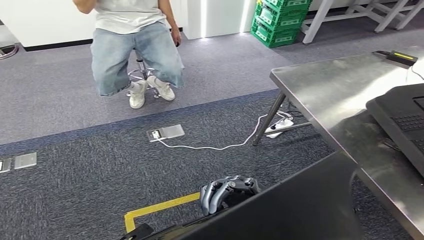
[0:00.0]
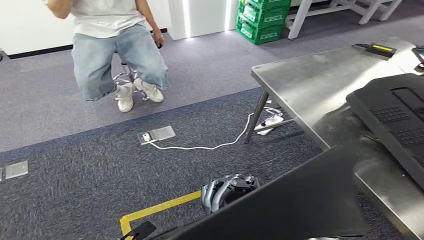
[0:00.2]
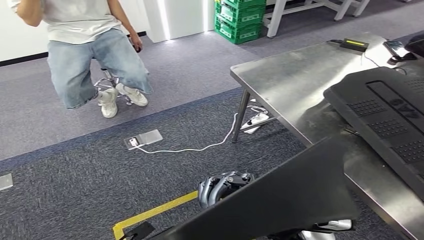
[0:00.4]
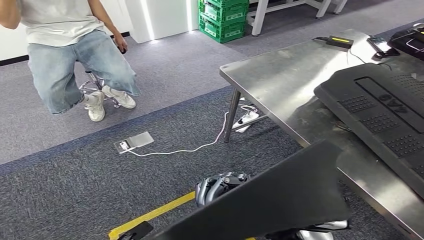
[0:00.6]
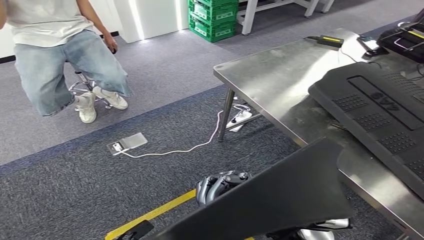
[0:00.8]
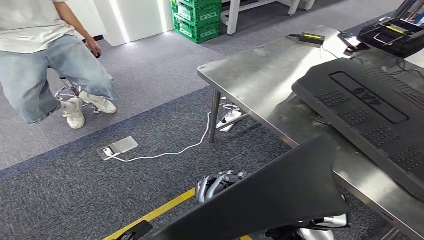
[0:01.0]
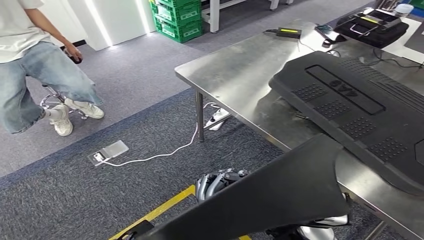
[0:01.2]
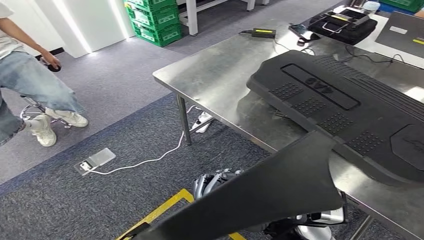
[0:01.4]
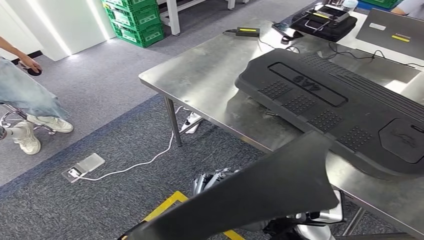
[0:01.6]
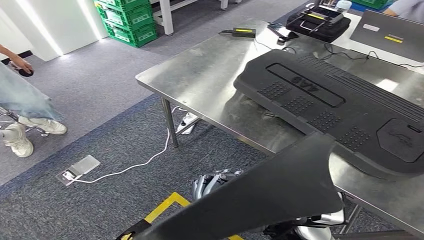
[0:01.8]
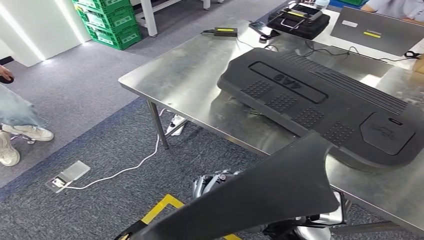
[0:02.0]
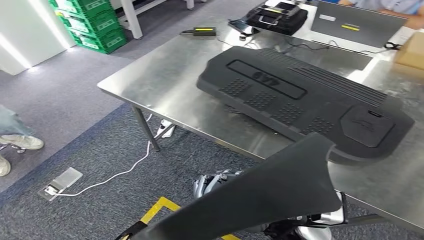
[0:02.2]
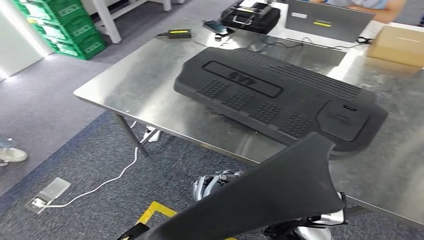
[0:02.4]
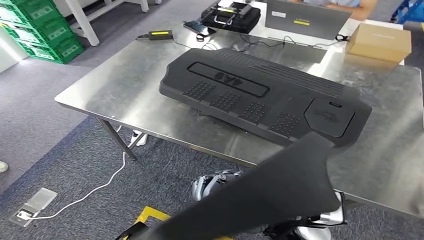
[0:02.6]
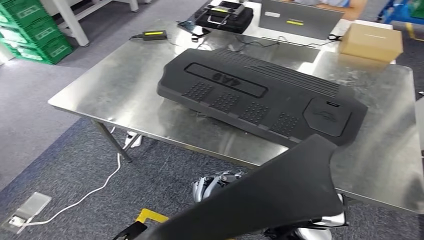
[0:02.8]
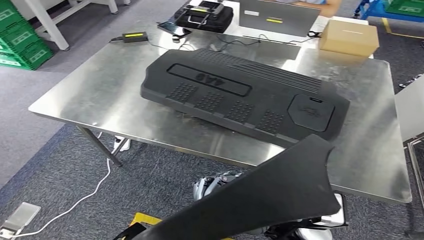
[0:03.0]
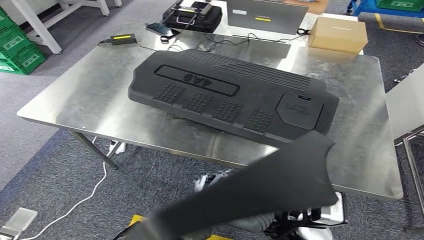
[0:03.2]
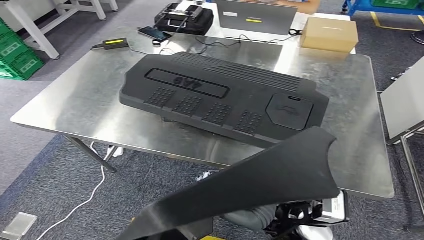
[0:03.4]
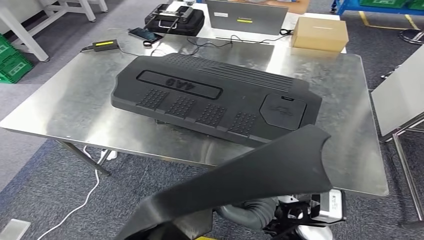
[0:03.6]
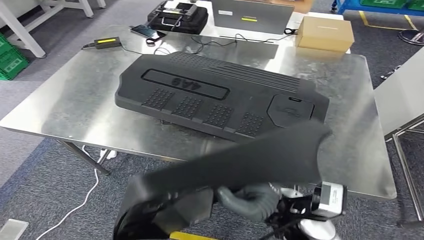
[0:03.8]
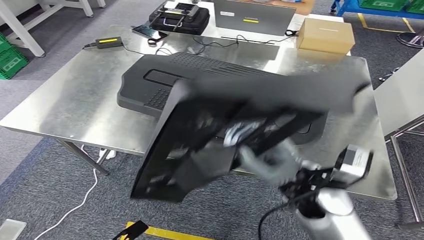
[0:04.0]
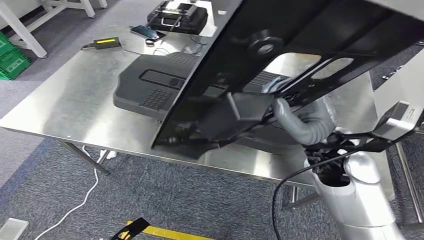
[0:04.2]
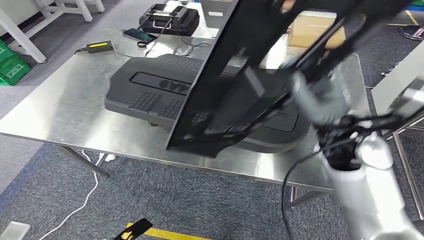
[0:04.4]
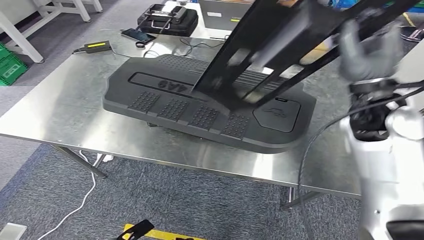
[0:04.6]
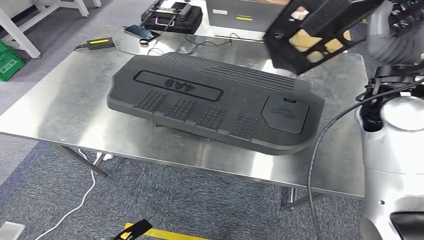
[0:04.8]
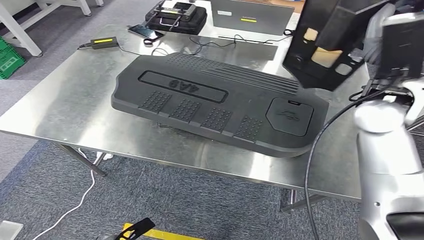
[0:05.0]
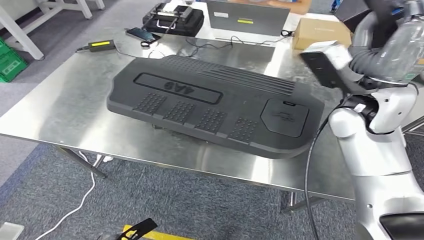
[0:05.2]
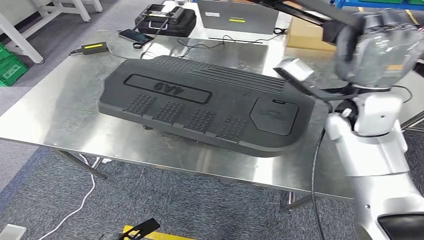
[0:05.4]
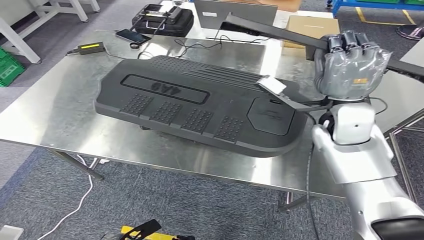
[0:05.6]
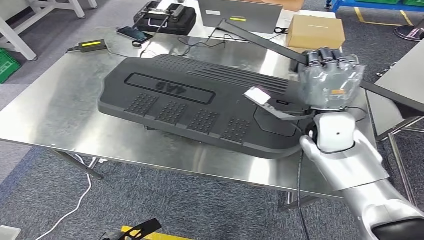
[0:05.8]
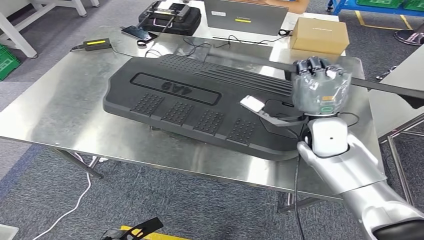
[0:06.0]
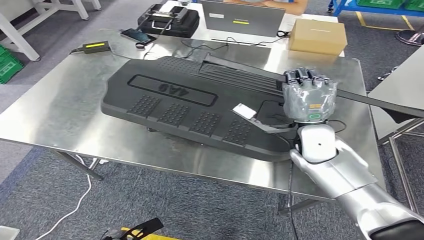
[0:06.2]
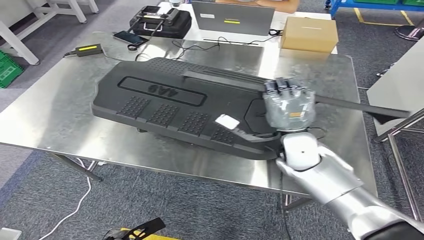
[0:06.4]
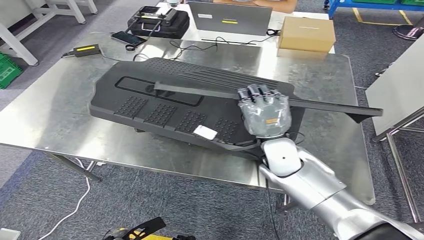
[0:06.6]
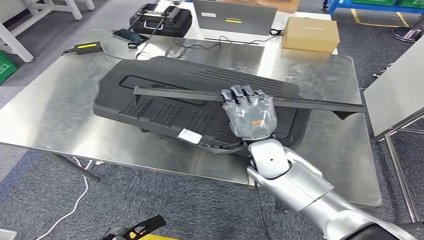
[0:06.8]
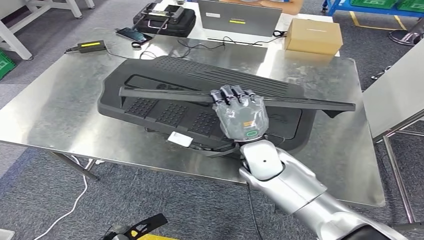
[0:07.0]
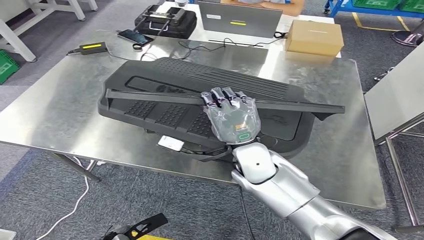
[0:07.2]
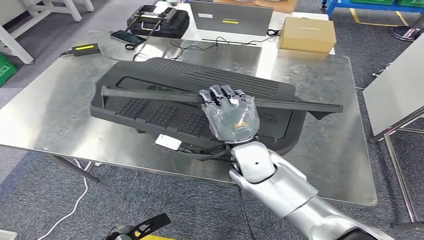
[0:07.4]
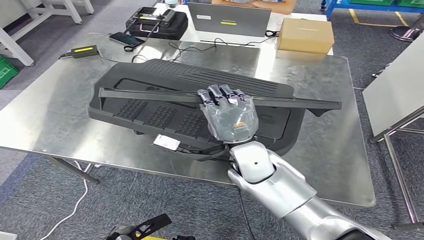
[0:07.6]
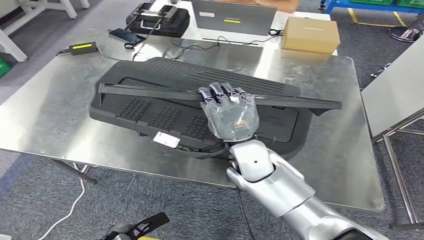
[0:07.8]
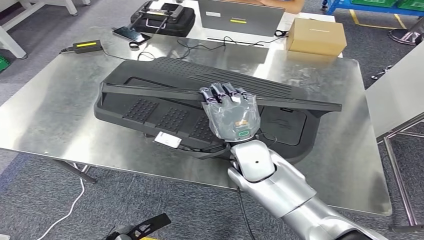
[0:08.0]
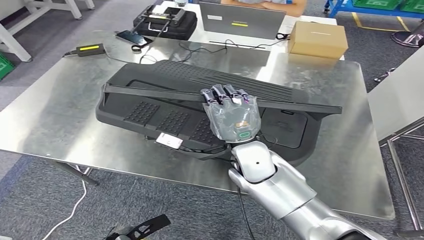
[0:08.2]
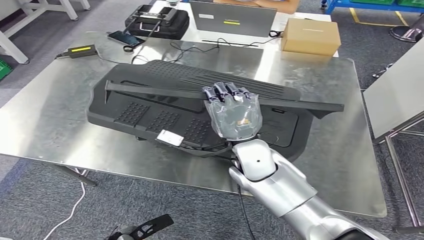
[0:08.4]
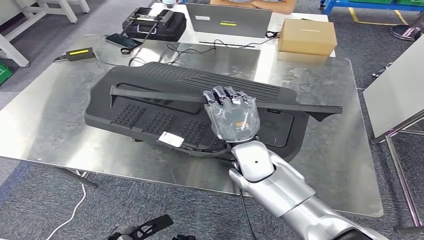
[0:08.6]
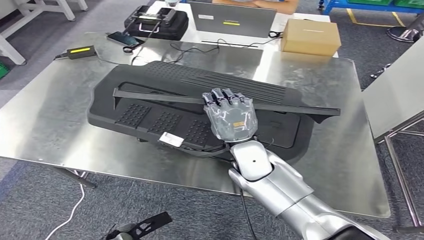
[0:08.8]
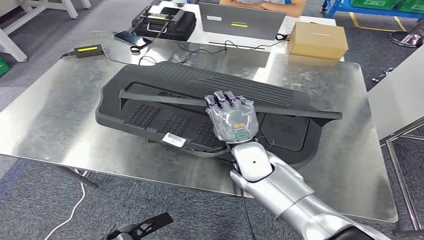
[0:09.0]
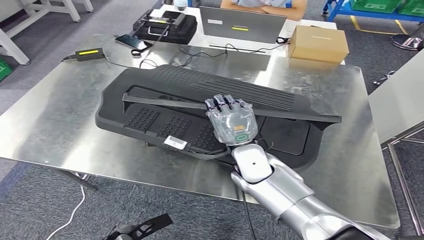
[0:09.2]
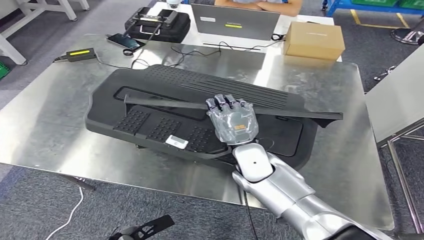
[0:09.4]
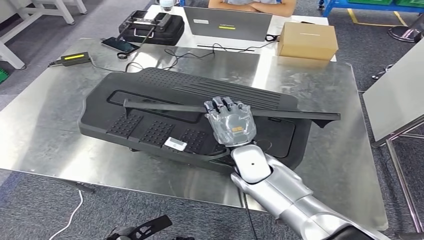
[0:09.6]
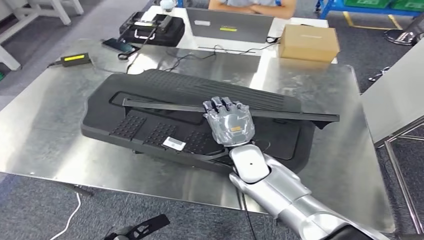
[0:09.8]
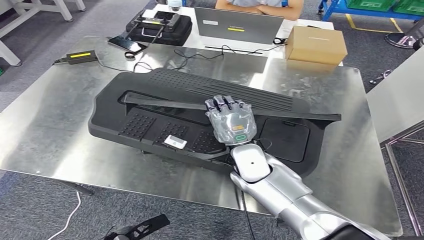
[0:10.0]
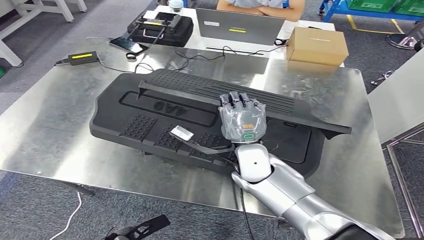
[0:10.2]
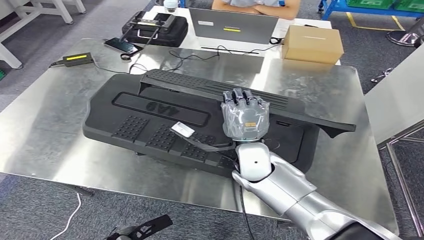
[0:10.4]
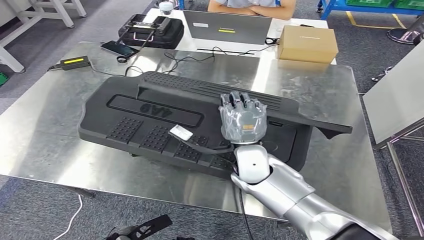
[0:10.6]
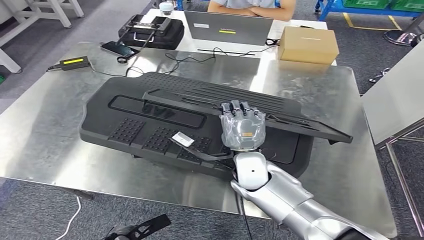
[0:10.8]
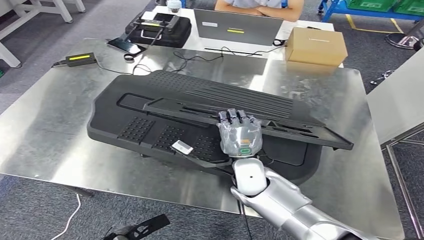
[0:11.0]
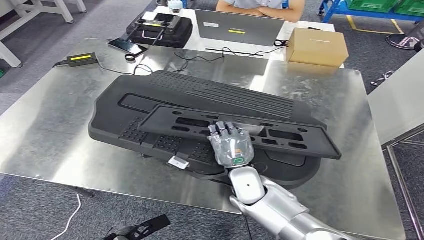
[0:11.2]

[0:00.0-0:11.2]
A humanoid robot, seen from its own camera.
Step, 0:00.0 to 0:02.8: Move the large material to the workbench.

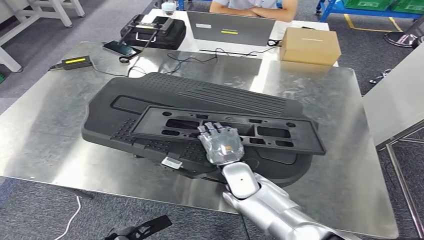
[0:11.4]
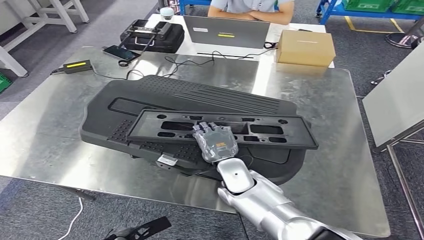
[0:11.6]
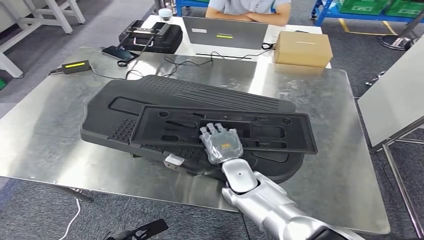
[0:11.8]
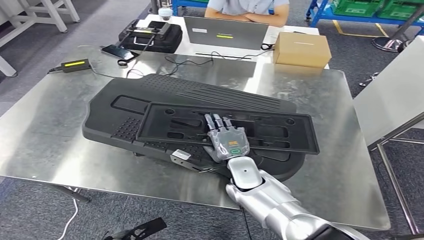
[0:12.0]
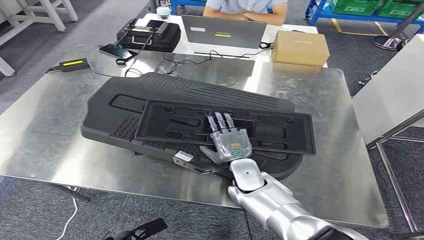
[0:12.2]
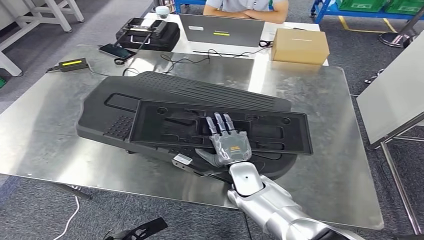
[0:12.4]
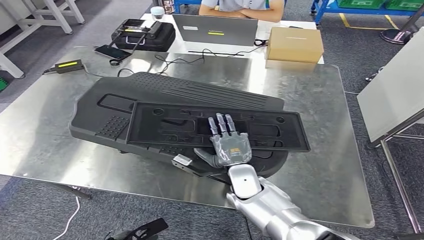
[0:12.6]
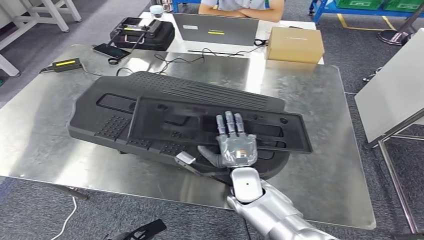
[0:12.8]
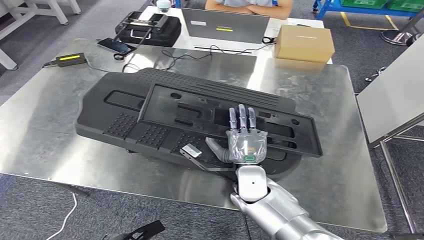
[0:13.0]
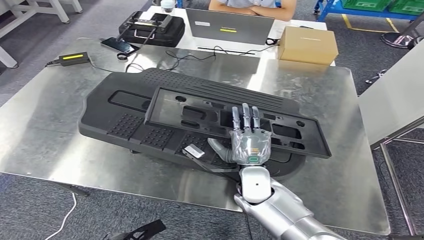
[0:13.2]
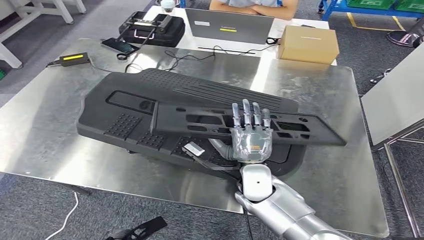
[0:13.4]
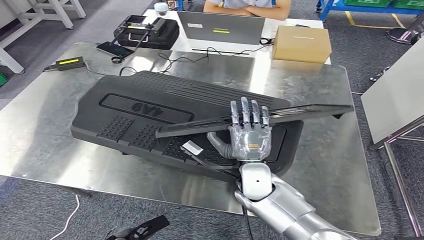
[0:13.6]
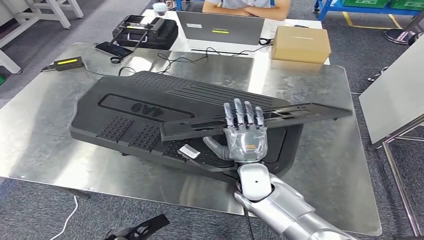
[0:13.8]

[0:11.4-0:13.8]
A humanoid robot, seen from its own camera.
Step, 0:11.4 to 0:13.8: Insert the large material into the corresponding slot on the workbench.
